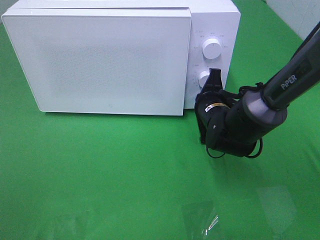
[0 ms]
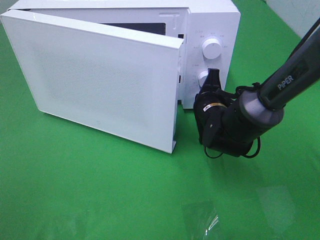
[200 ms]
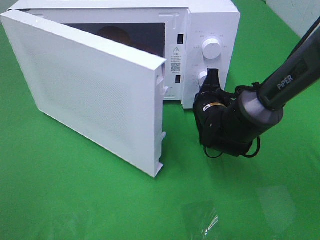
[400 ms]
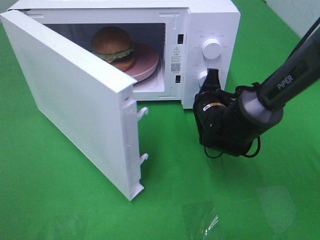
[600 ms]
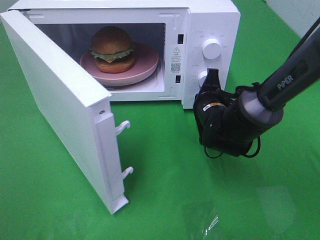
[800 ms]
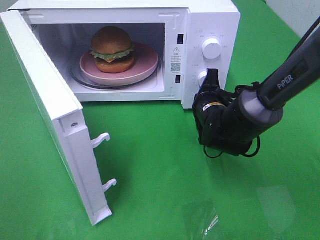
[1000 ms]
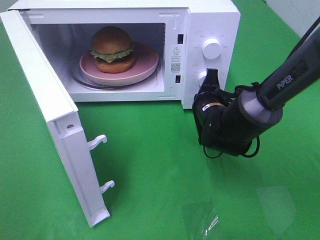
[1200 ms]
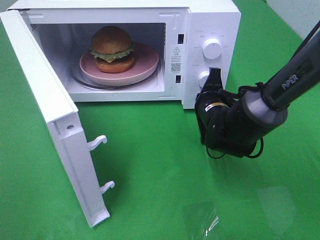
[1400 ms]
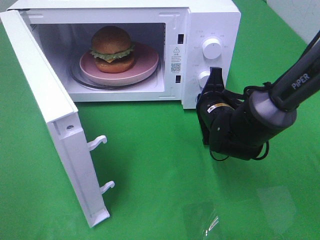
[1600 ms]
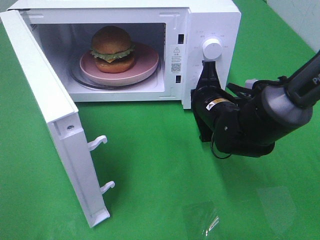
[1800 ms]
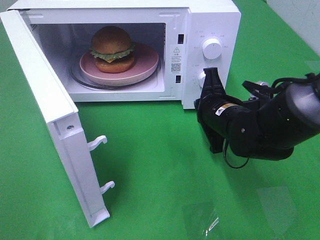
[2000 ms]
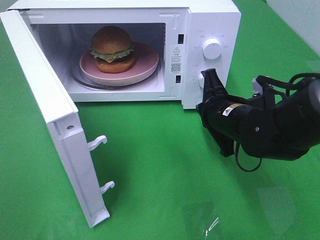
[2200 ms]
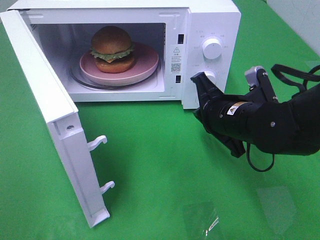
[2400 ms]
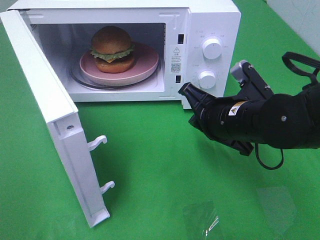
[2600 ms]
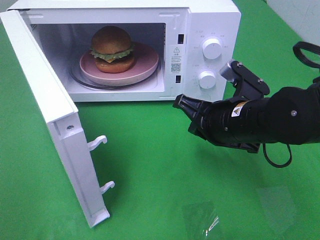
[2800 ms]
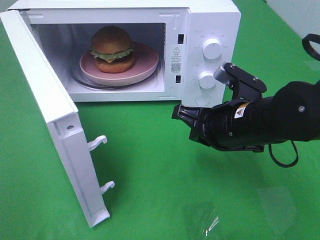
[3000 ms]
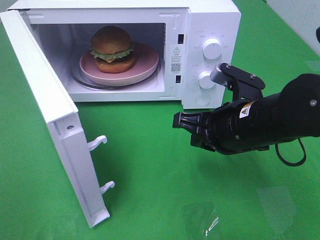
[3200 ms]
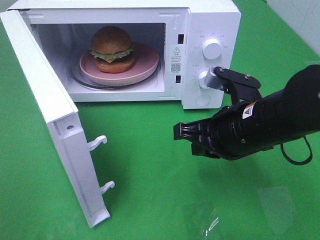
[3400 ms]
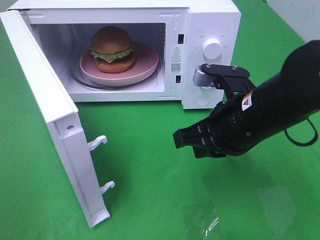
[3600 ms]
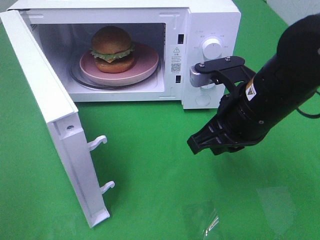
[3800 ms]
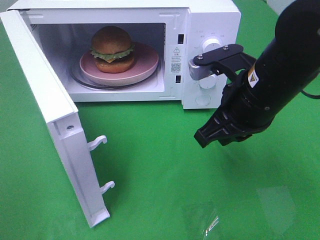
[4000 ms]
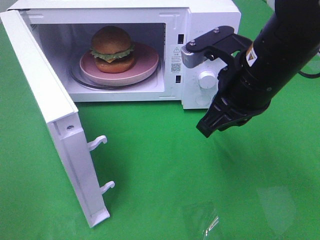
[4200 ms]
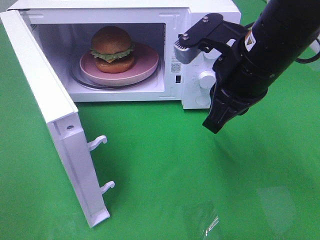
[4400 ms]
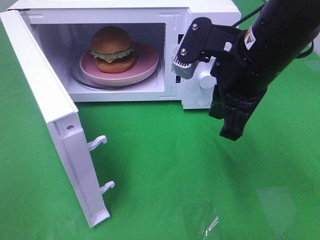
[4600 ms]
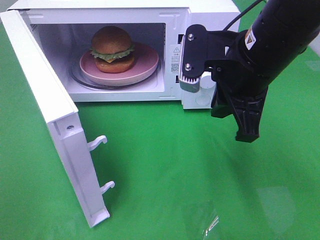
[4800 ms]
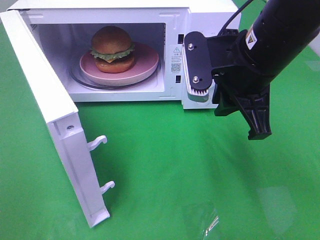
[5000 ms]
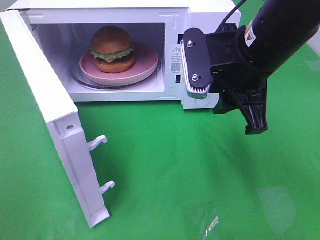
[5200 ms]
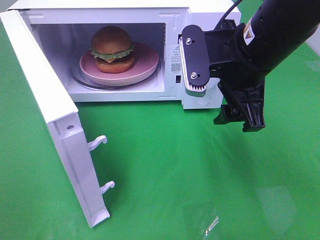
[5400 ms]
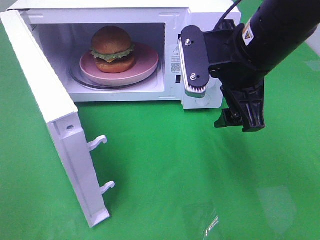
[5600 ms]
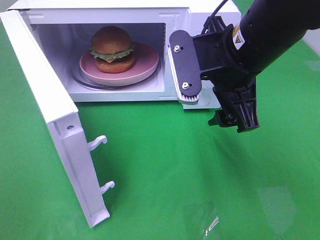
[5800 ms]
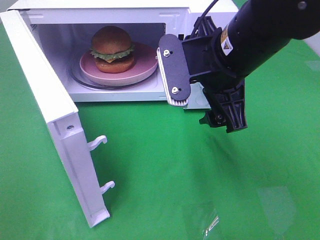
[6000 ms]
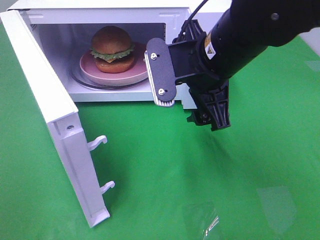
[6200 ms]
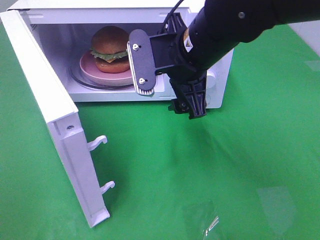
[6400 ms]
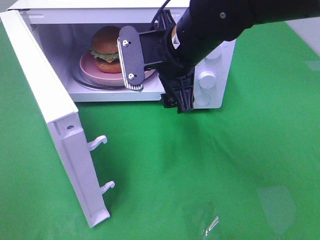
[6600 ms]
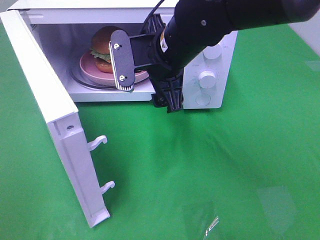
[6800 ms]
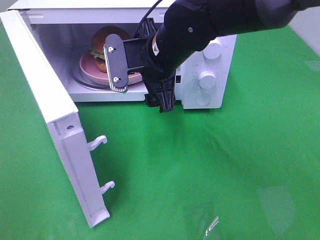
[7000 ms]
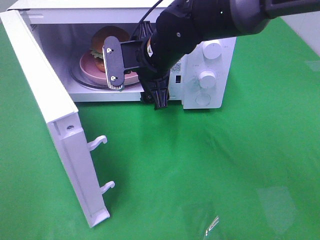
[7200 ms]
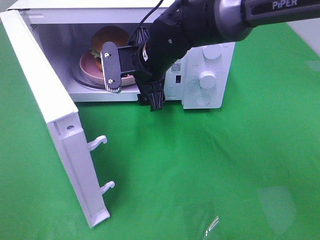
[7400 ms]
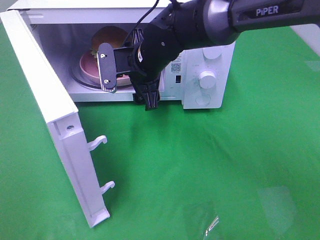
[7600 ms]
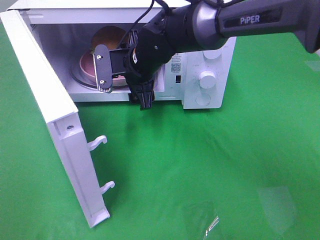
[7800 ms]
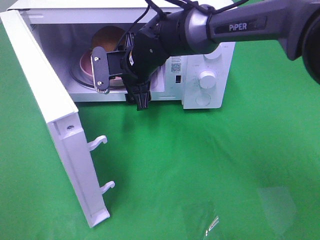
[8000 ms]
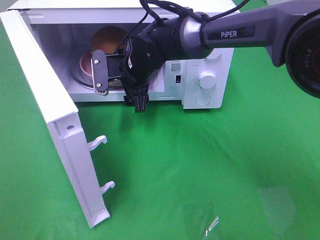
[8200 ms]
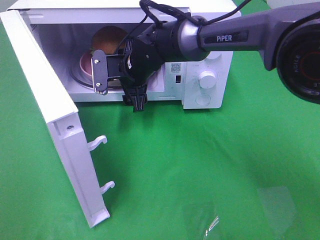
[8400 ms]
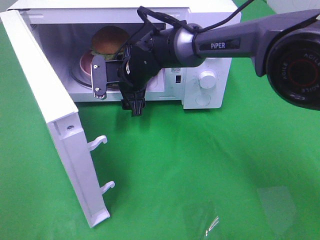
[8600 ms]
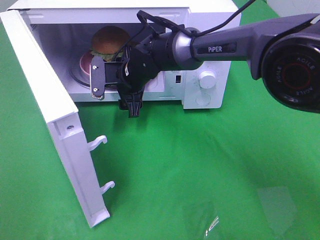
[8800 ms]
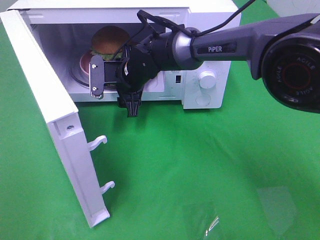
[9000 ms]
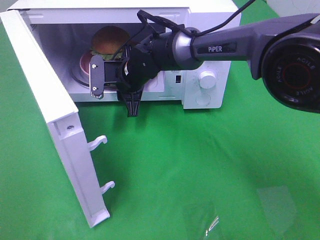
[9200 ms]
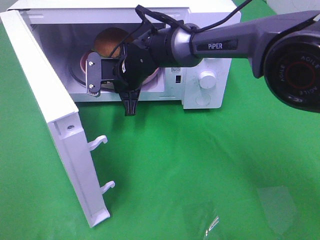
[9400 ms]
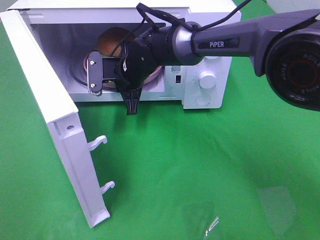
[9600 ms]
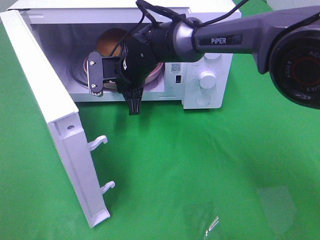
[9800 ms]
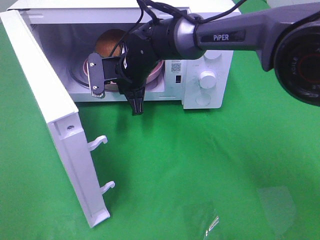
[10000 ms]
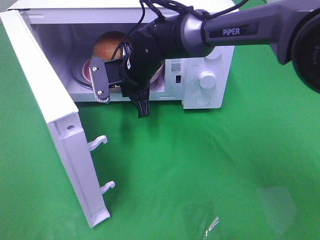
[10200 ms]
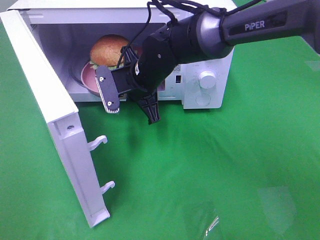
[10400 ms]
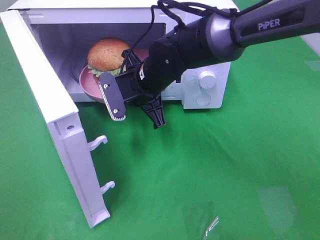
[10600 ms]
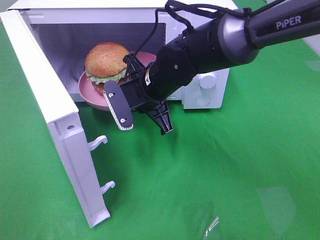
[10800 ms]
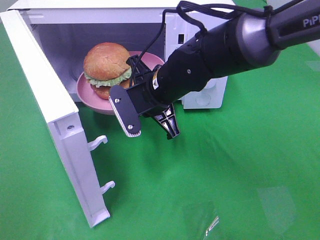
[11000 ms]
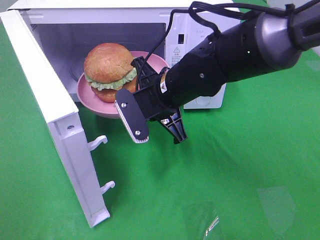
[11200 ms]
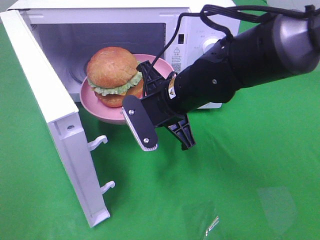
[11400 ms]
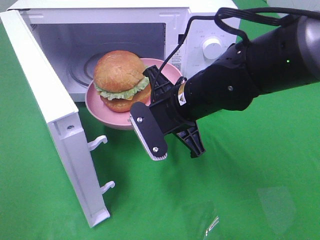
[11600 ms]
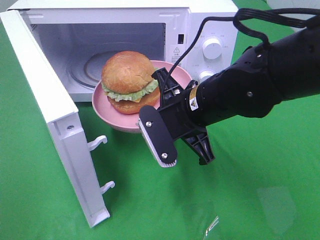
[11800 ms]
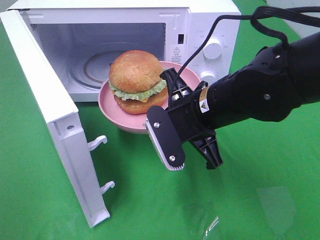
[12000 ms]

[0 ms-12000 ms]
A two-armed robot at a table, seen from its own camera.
Task of the whole recording: Heat the burger.
Step, 1800 ms to 9400 ms: Right hand: grab the plate with the hamburger.
1600 ms to 3000 ms: The right gripper is displaced backward and upward by roughly 10 cm.
3000 ms to 4400 ms: The right gripper travels upward by some 10 cm.
4400 ms to 6000 ms: The right gripper opens its fingers.
6000 ms to 7600 ms: The right gripper goes approximately 20 cm forward, to the left and downward.
7600 ms to 9000 ms: The right gripper moves downward, some 5 cm.
9000 ms to 10400 ms: The right gripper moves approximately 5 cm, and closes up.
10400 ms to 12000 ms: The right gripper shifts some 15 cm backward and to the right.

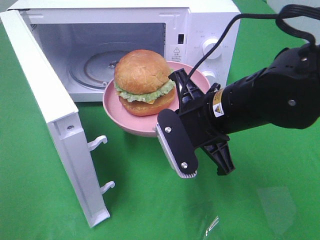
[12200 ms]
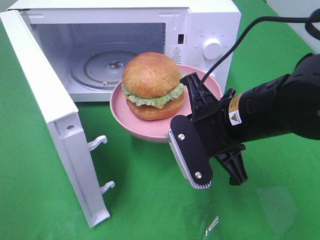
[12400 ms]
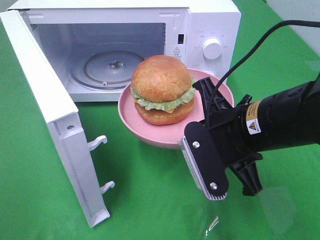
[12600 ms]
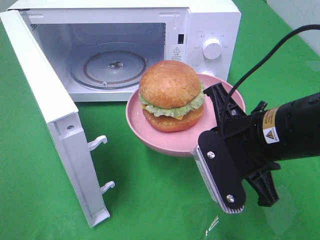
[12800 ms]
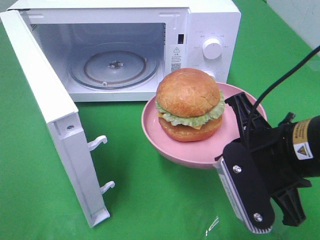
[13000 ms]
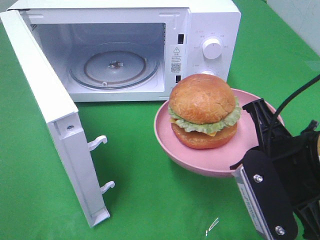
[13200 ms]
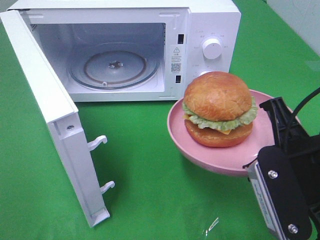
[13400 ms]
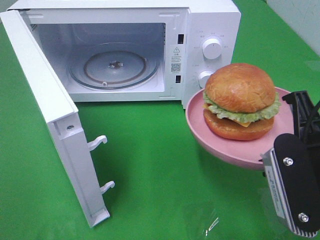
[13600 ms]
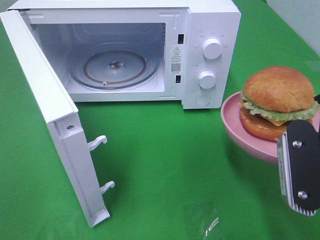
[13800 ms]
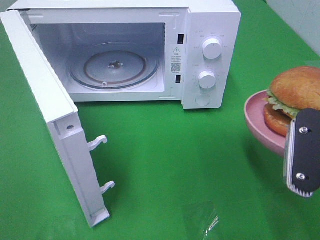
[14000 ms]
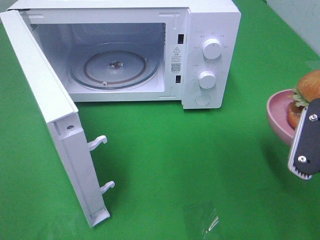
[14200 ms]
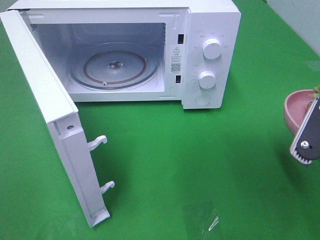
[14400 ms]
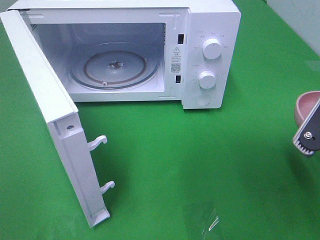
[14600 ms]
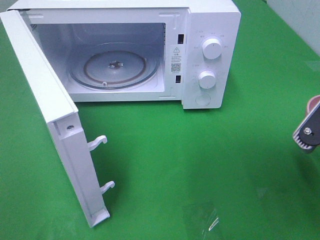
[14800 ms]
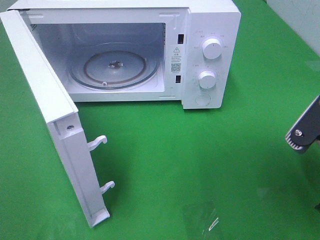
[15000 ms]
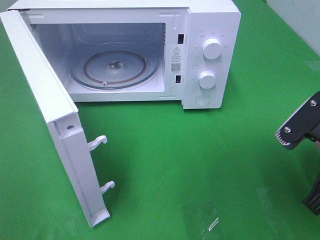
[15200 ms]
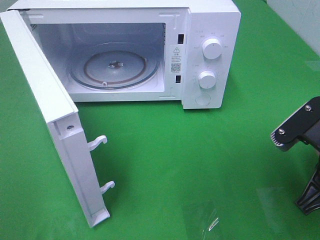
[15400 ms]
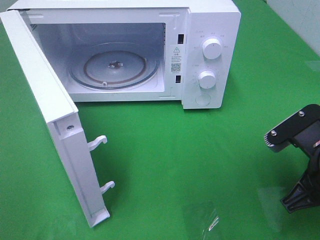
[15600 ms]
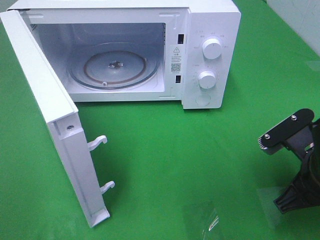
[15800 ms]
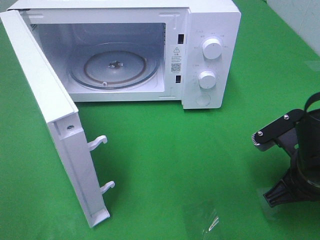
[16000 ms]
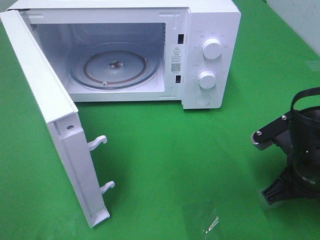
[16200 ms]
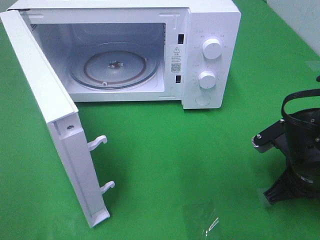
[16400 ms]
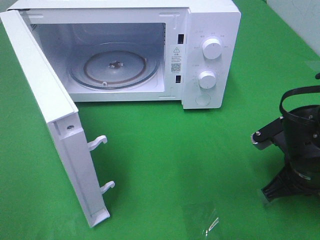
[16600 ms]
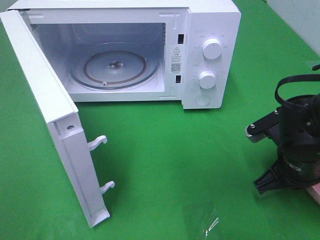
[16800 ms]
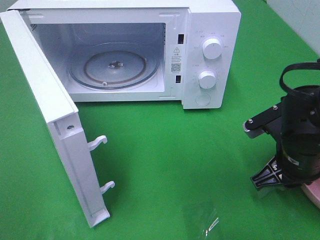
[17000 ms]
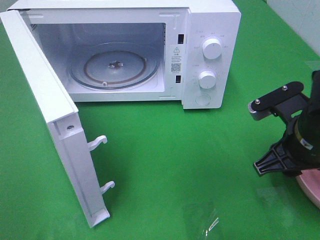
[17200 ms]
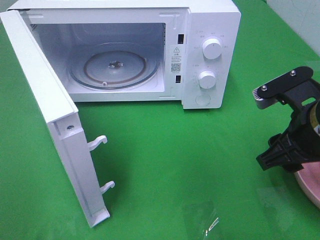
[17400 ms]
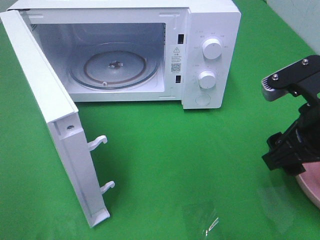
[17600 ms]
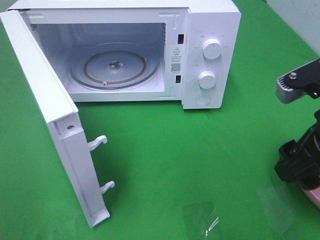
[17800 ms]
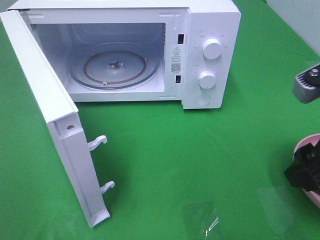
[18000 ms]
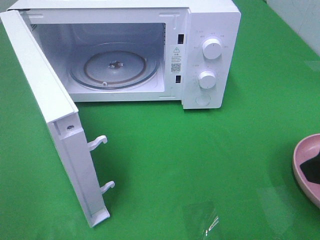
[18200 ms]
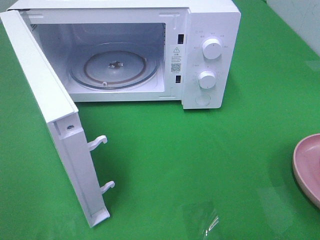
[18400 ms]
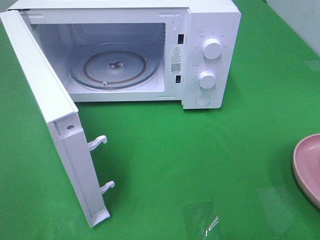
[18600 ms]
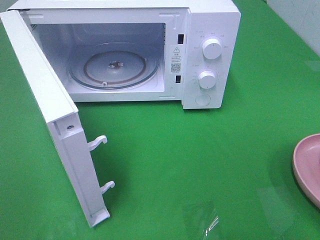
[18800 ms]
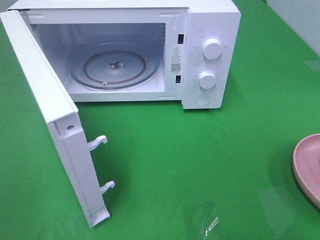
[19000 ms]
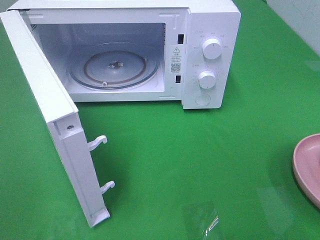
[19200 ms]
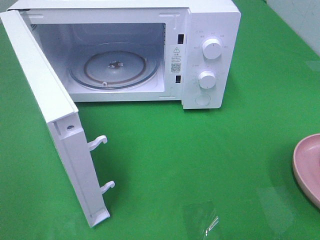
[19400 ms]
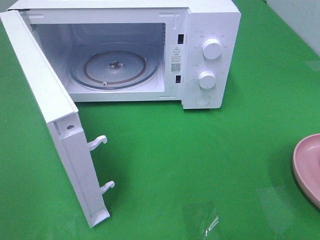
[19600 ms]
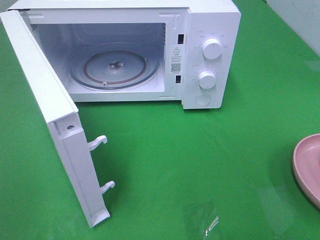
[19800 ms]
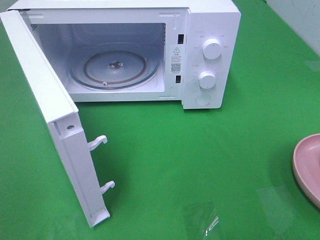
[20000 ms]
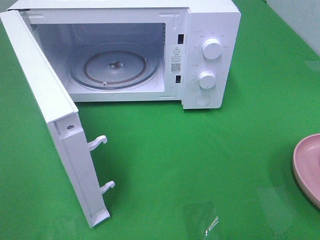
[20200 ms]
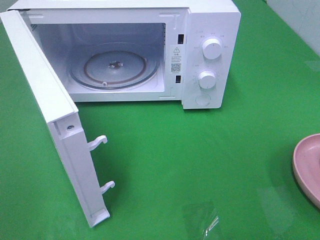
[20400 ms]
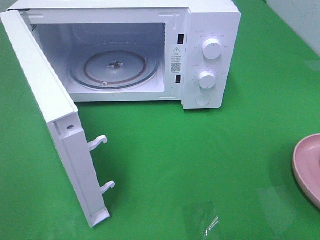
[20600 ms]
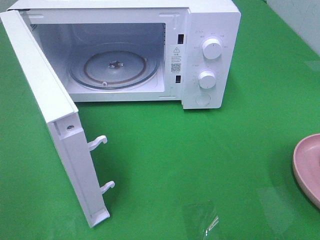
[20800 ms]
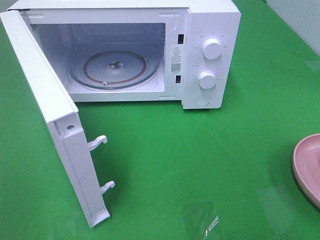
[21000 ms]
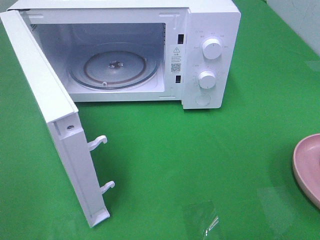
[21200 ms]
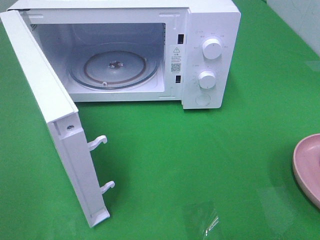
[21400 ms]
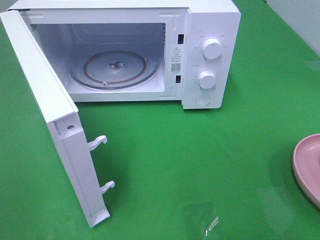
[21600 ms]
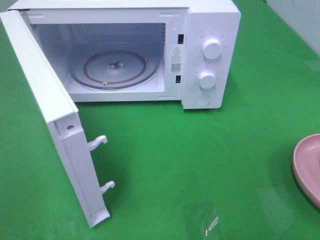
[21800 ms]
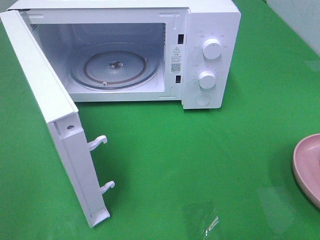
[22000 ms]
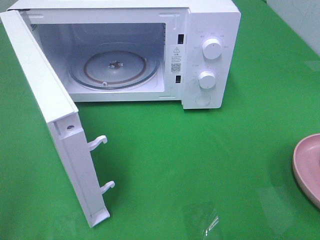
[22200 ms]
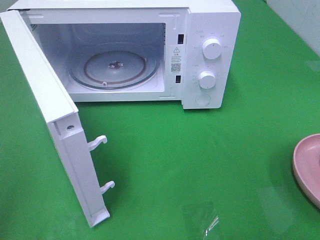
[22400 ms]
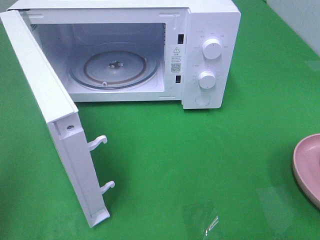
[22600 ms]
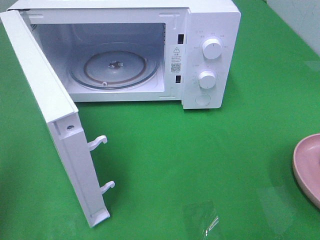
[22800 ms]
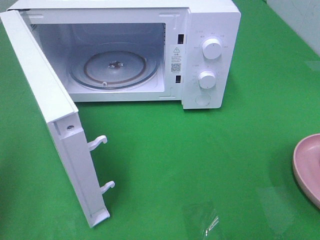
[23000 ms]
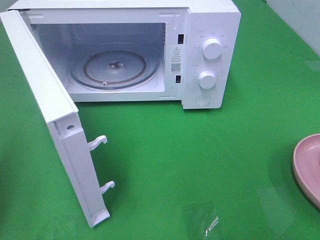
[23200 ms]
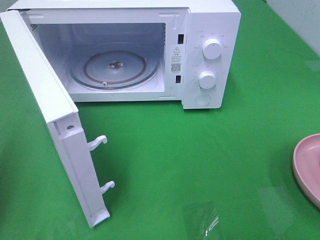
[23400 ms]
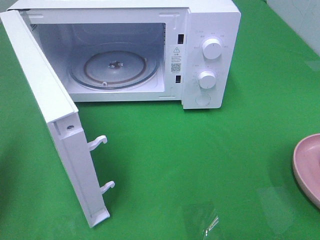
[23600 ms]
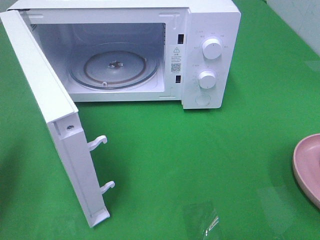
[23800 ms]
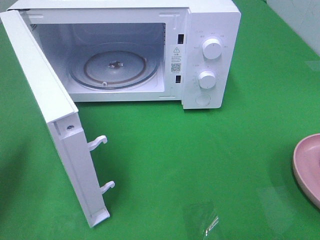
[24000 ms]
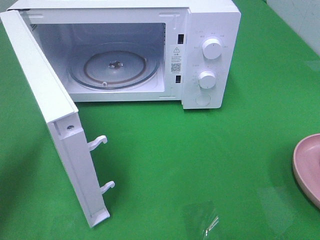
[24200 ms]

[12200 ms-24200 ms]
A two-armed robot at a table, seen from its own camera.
Task of the whole recording: Heat the burger.
Step, 12200 ms to 17200 ms: Right hand: place the plate on the table.
12200 ms to 13800 ms: The right gripper heads to the right and backward, covering roughly 15 cm.
15200 ms to 16600 ms: The right gripper shifts about 10 cm downward and forward.
16600 ms to 18200 ms: The right gripper is displaced upward and backward by roughly 20 cm, and opens.
18200 ms to 19800 ms: The right gripper shifts approximately 15 cm backward and to the right.
19800 ms to 21200 ms: The two grippers keep their place.
22600 ms to 24200 ms: The left gripper moves forward and downward, roughly 20 cm.
